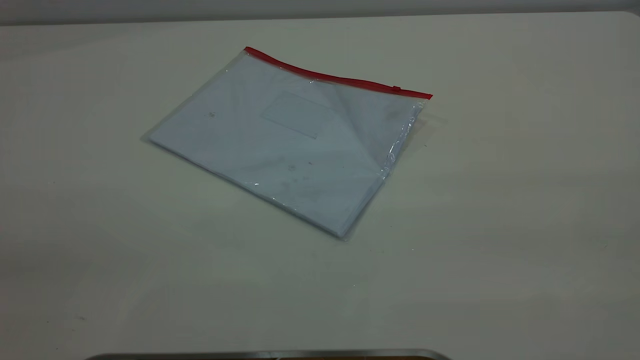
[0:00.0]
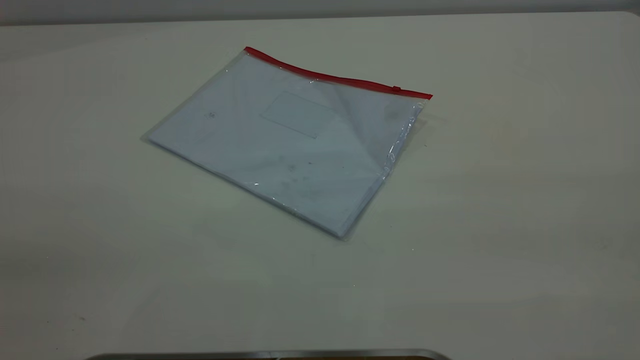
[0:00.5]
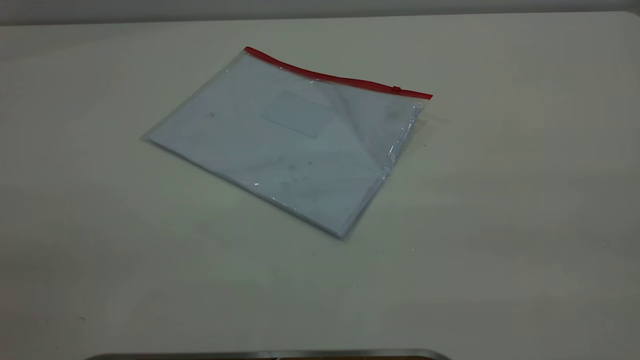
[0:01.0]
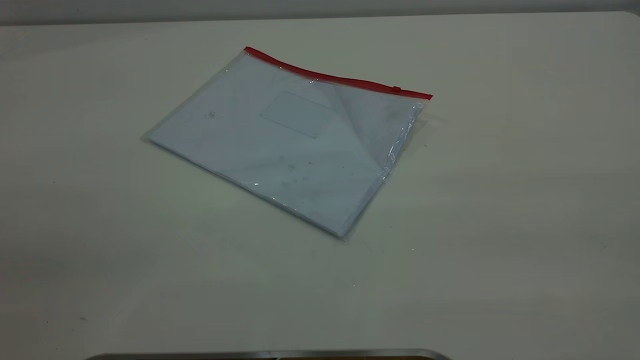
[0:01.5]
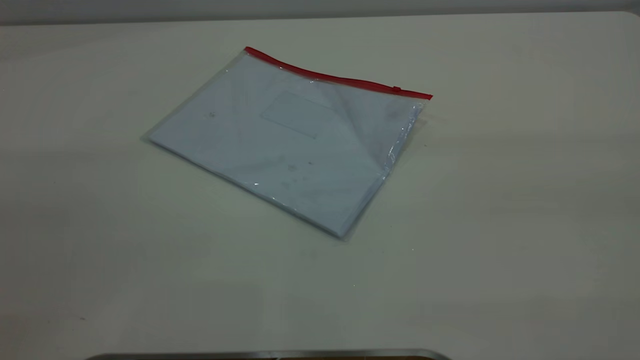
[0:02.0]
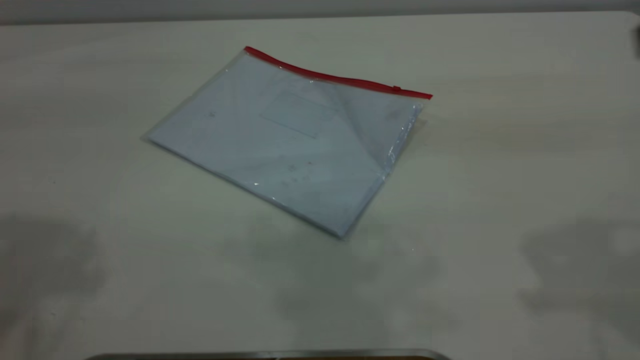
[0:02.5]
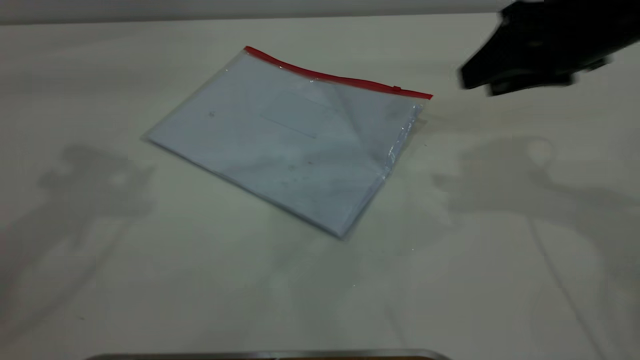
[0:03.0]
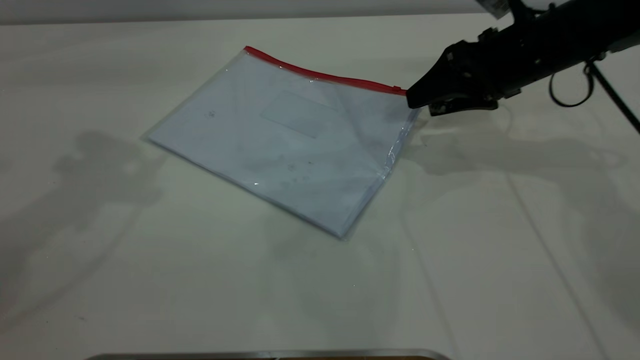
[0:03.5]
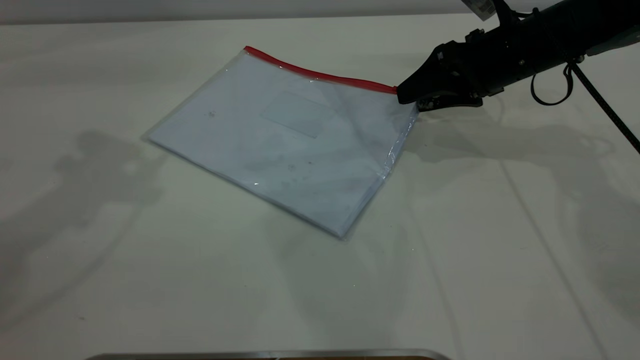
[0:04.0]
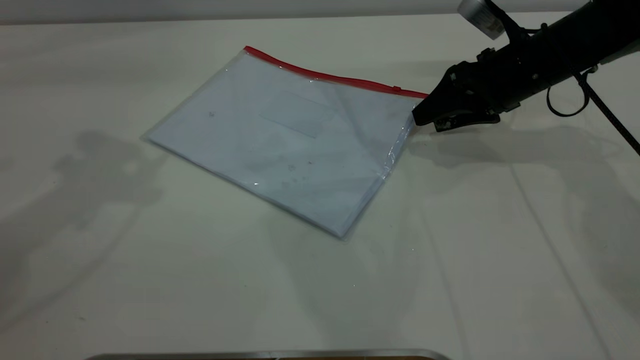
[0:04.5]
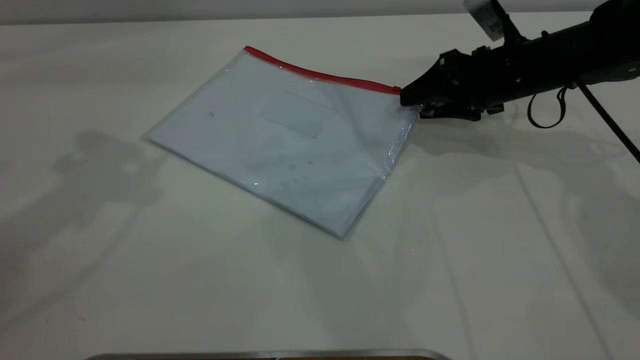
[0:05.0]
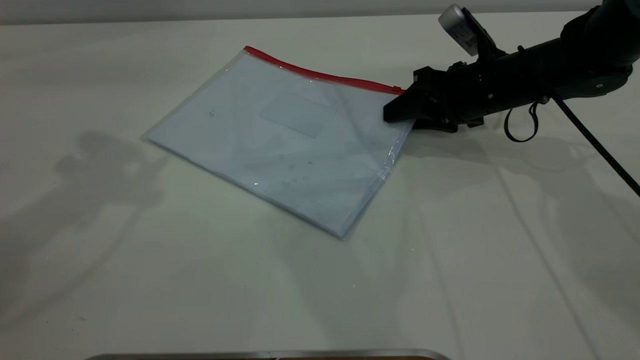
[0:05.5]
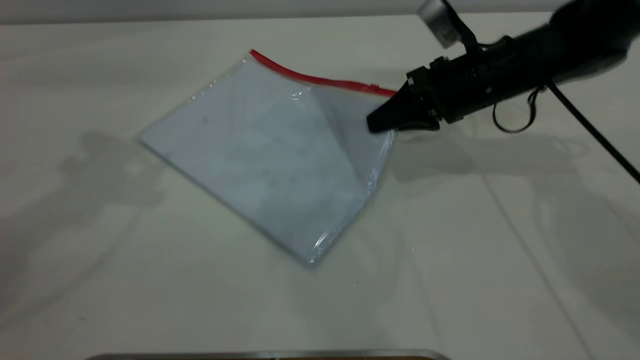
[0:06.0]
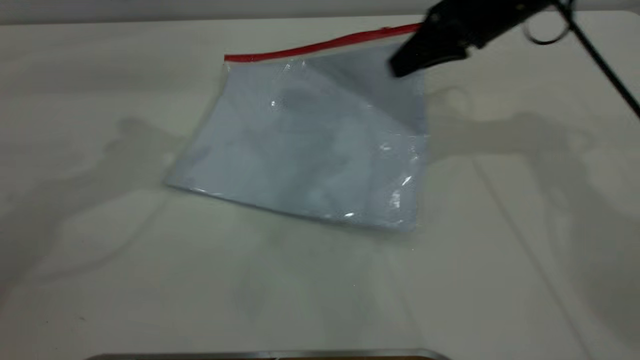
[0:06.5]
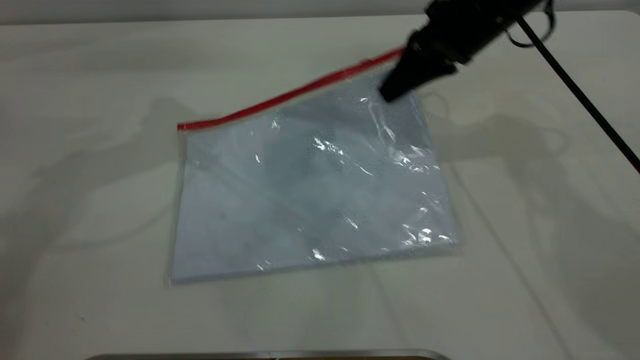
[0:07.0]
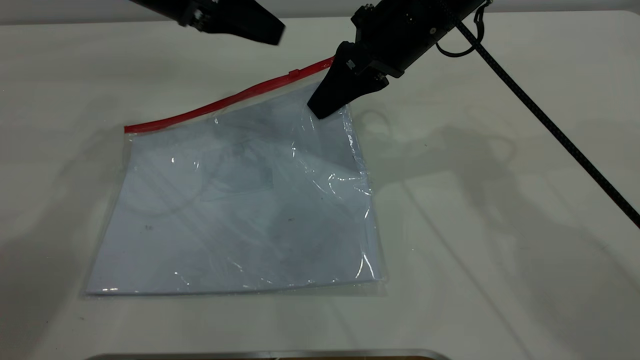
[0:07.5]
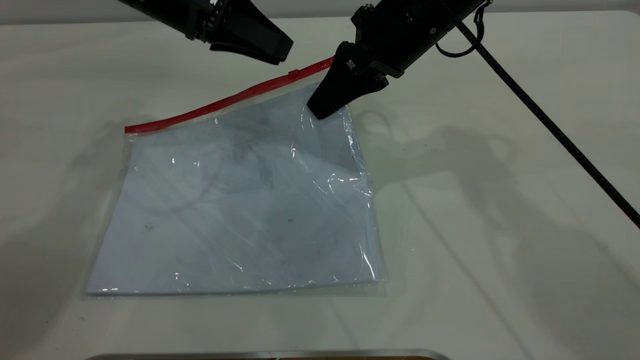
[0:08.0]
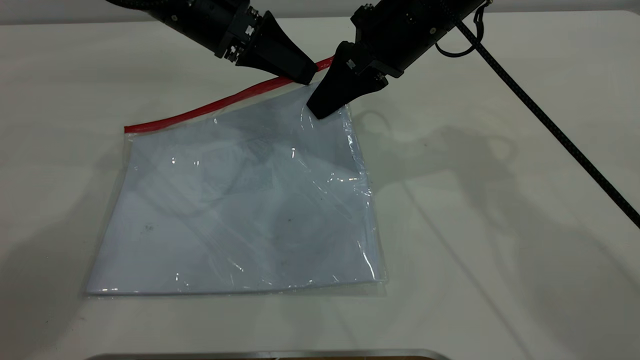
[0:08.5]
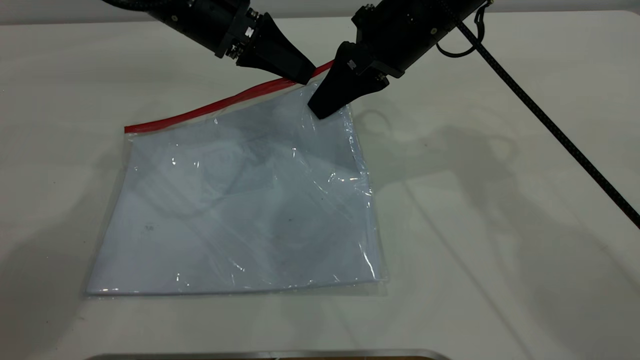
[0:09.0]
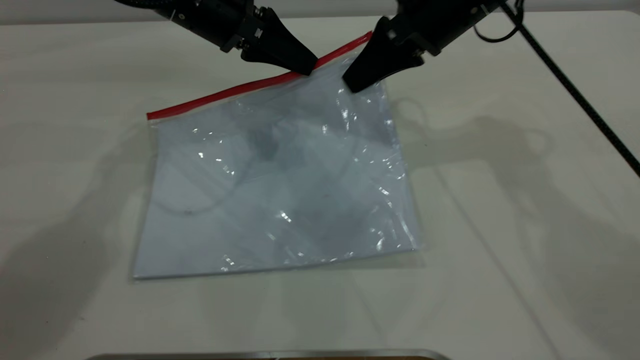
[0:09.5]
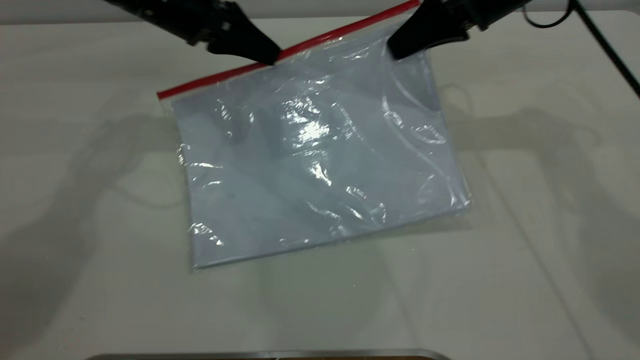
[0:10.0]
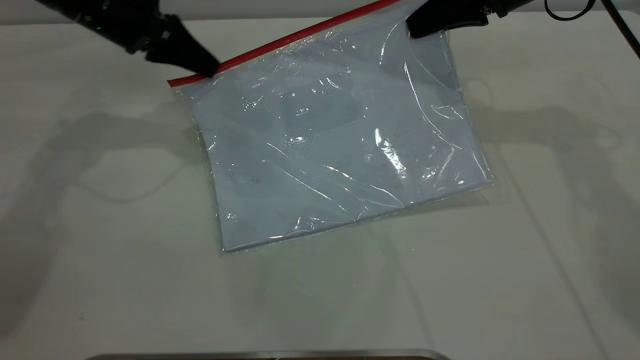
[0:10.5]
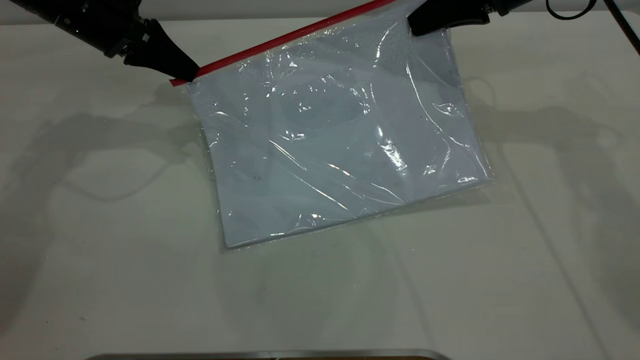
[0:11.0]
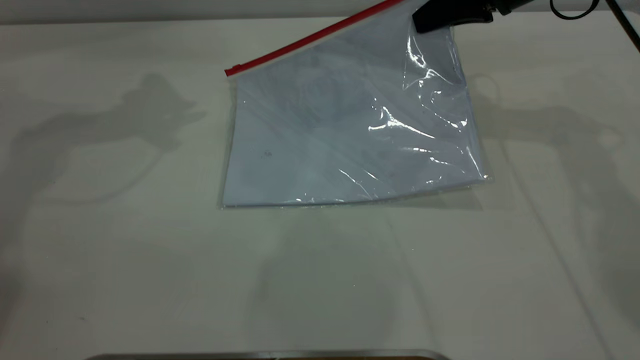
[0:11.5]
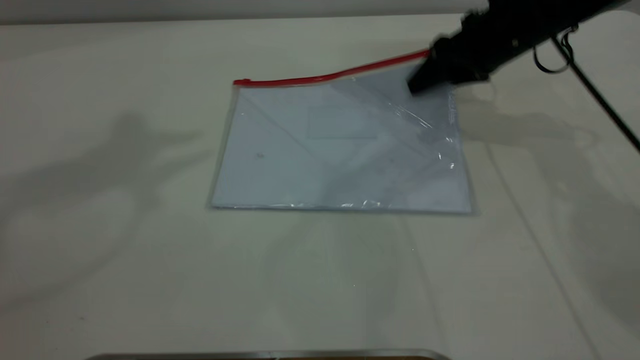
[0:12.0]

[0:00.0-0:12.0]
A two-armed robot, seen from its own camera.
Step, 0:00.0 to 0:06.5: Pick up the transparent plastic bag with the right gripper.
Step, 0:07.0 to 0:11.0: Pulling up the zipper on the transparent plastic bag with the left gripper to close it.
0:02.0 to 0:04.0: The right gripper shifts some 50 cm forward and downward, and opens up.
0:04.0 to 0:06.0: The right gripper closes.
0:06.0 to 0:08.0: The right gripper is displaced to the left and upward by some 10 cm. Meanwhile the left gripper travels downward, to the right and forward by approximately 20 cm.
0:08.0 to 0:10.0: The left gripper closes its fingers; the right gripper travels to the right by about 10 cm.
0:10.0 to 0:12.0: The left gripper goes about 35 cm upward, and opens; the right gripper moves downward, roughly 5 cm, and opens up.

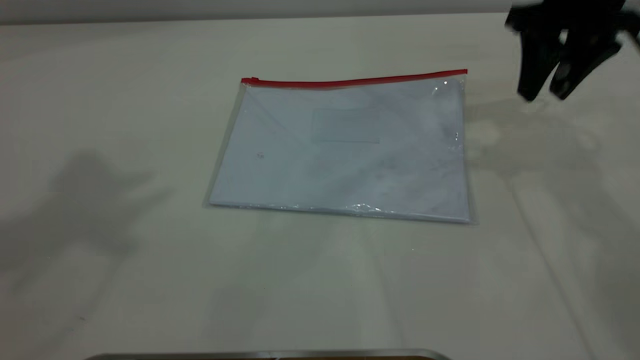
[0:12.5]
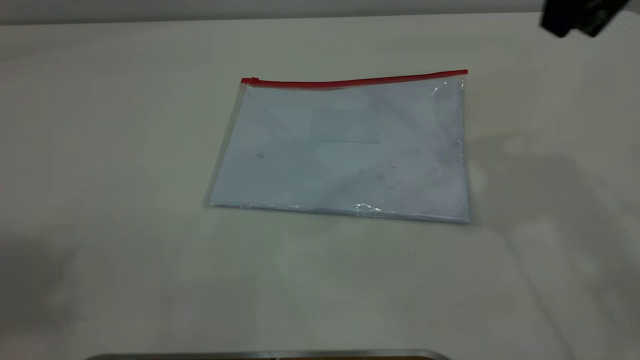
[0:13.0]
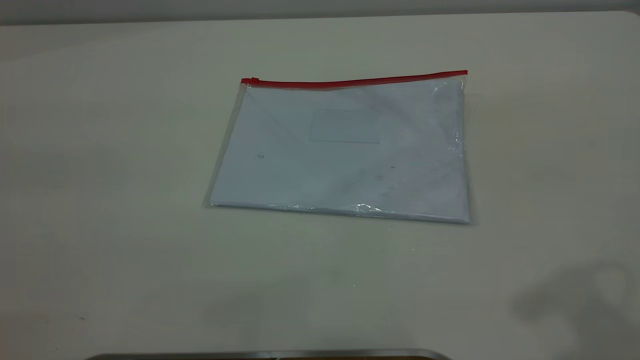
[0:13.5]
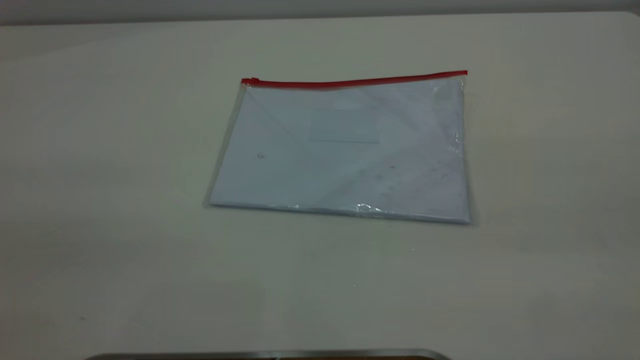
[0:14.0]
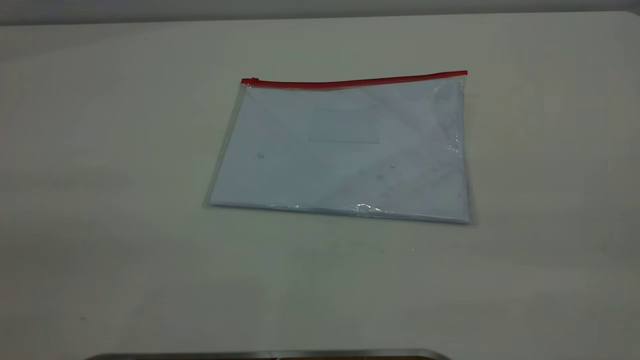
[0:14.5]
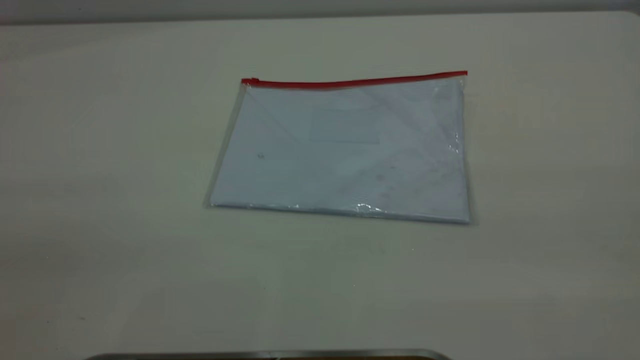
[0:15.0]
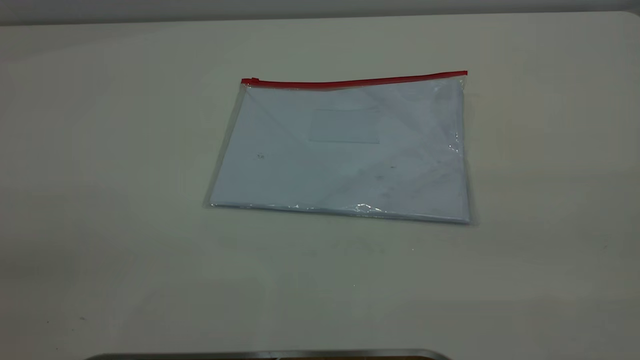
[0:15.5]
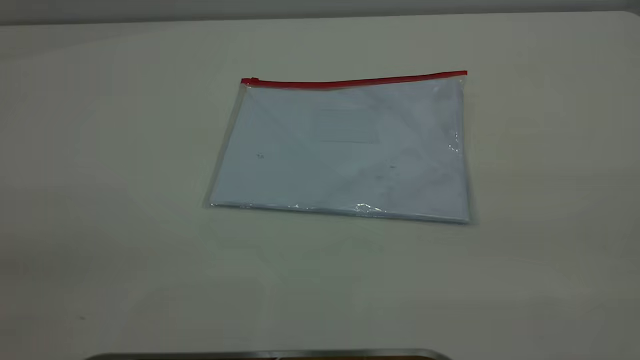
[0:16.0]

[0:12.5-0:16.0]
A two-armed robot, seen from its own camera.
0:12.5 to 0:14.5: The right gripper is displaced backward by approximately 40 cm.
